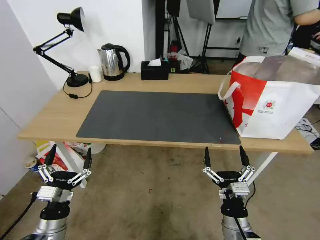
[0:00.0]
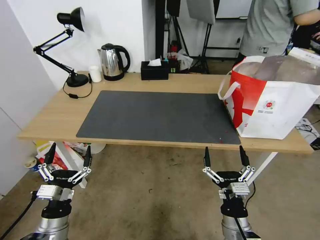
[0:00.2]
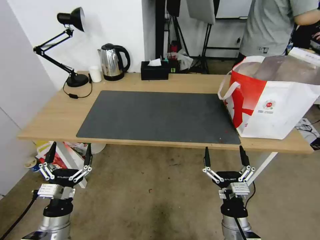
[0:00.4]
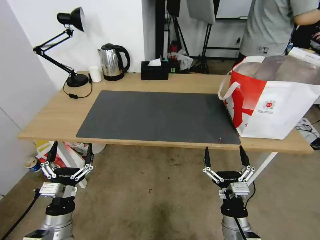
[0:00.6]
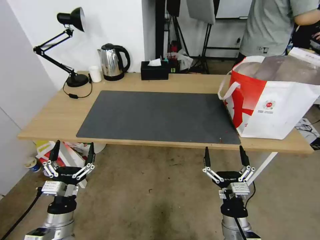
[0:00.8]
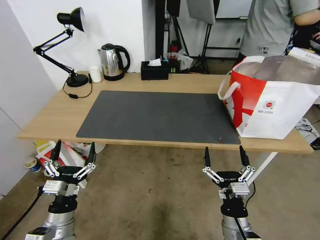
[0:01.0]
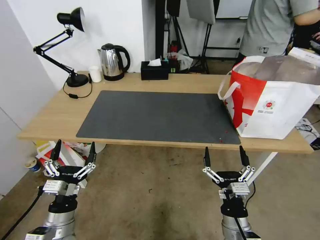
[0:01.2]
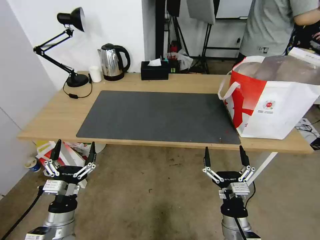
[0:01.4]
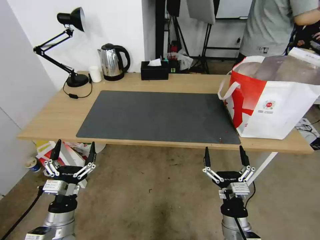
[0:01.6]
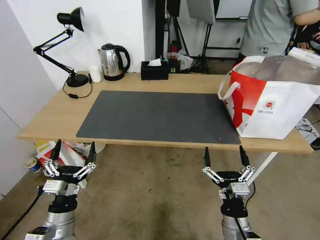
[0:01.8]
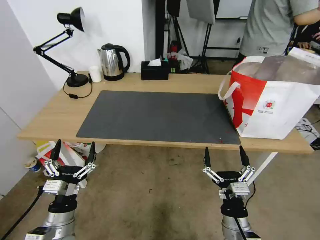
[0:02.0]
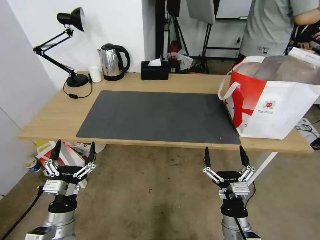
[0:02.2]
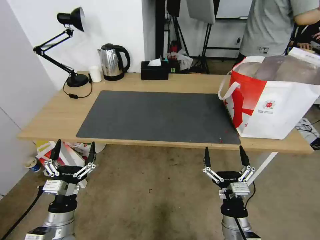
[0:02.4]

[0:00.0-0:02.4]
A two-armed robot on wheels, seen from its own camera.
Task of the whole recording: Pick up the trash from the table and place it into the takeout bag.
0:00.0 to 0:01.2: The grippers stay close to where they were, moving slightly.
0:01.2 to 0:02.4: Neither gripper changes place.
